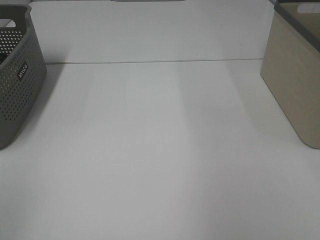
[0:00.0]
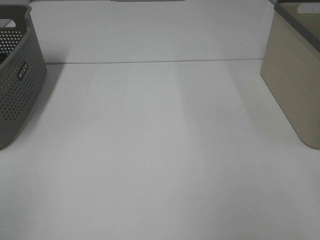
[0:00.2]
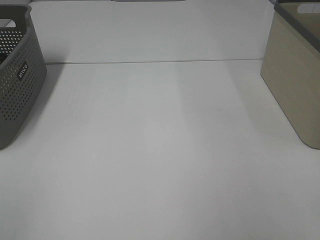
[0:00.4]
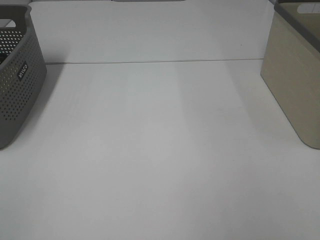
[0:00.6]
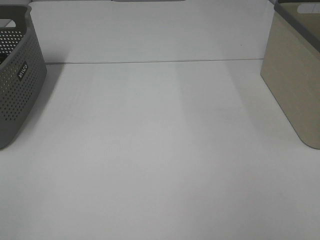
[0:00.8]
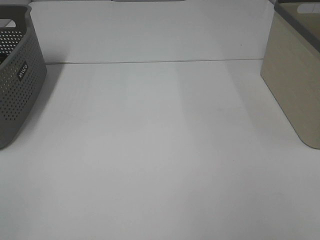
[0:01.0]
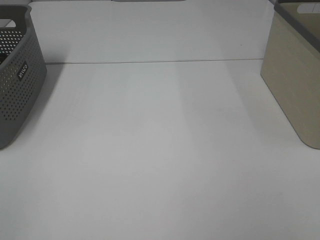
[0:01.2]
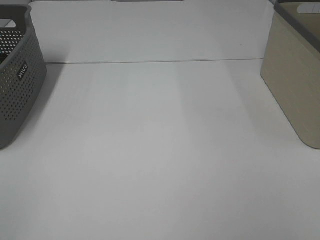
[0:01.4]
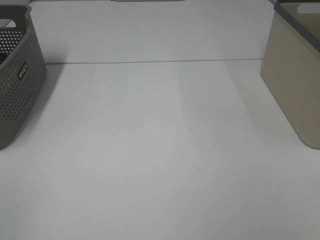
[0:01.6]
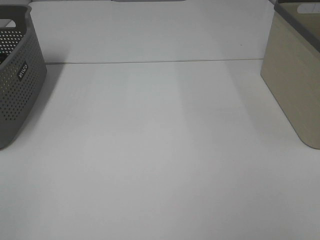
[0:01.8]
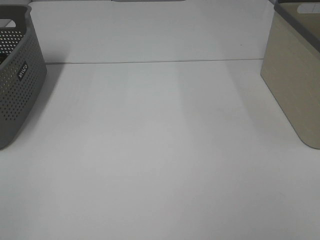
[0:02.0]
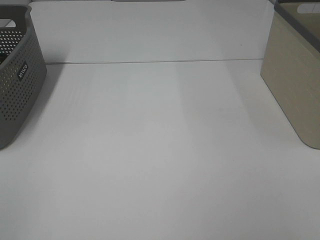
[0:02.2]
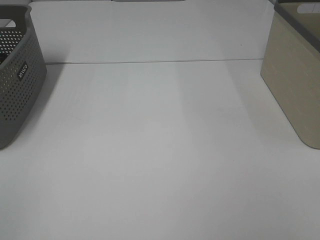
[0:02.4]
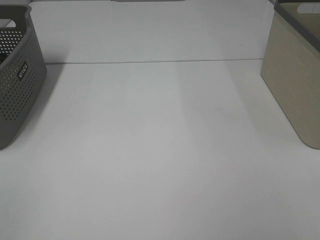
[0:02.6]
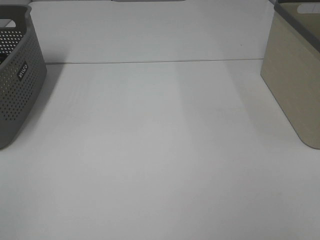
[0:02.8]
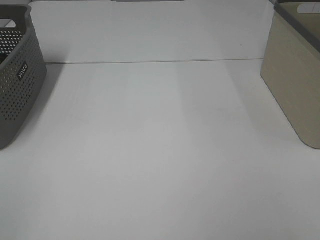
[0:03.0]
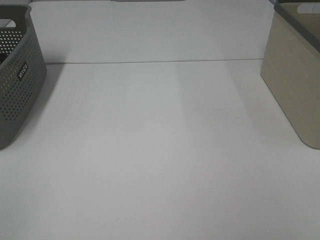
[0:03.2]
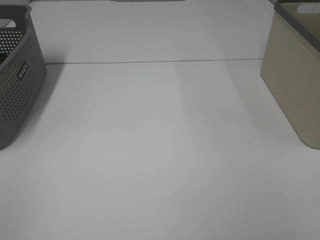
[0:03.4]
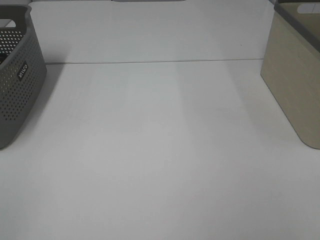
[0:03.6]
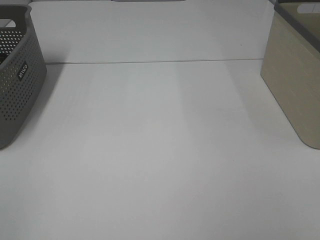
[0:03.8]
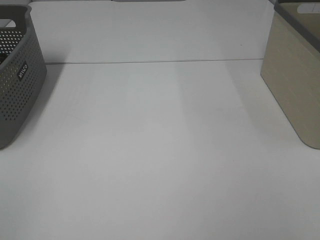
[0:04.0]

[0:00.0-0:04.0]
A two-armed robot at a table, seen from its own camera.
0:01.4 to 0:04.0: Both grippers stay about where they are.

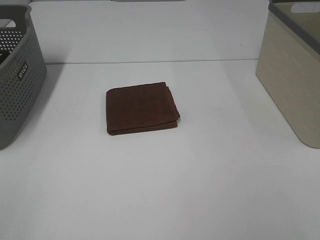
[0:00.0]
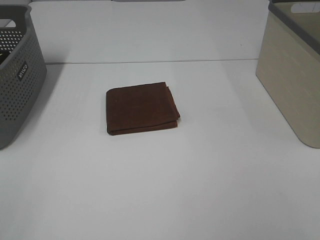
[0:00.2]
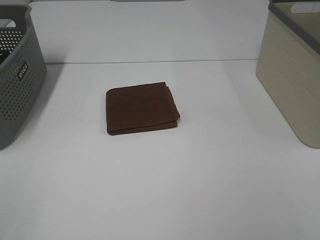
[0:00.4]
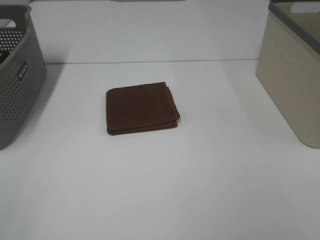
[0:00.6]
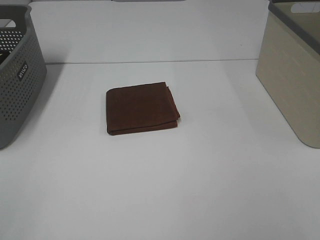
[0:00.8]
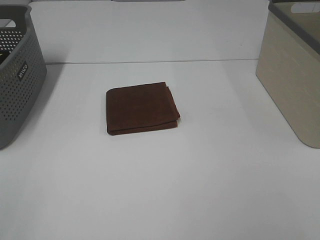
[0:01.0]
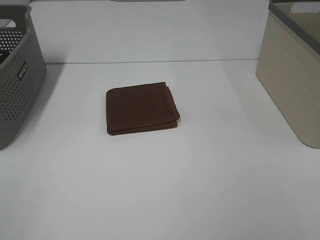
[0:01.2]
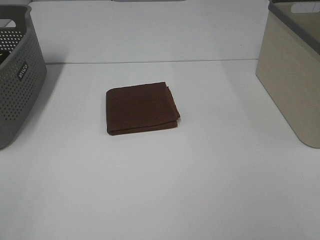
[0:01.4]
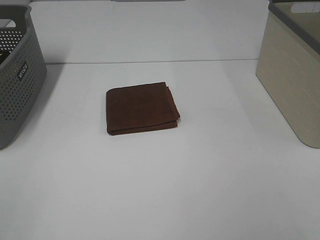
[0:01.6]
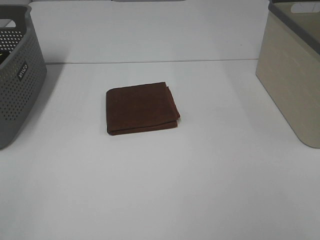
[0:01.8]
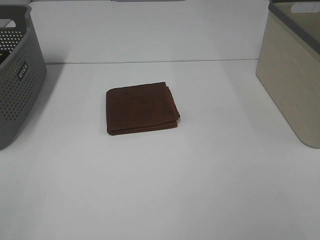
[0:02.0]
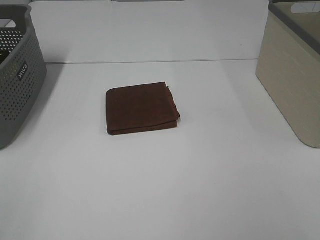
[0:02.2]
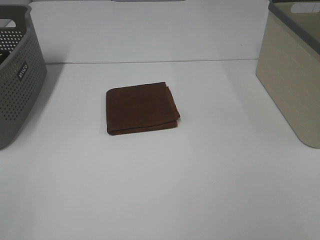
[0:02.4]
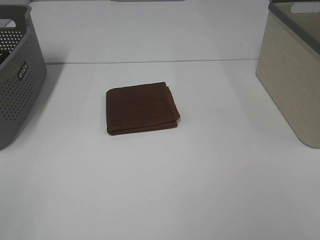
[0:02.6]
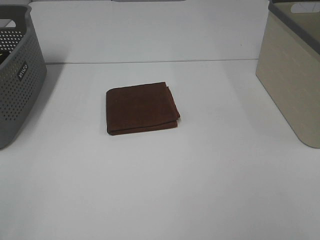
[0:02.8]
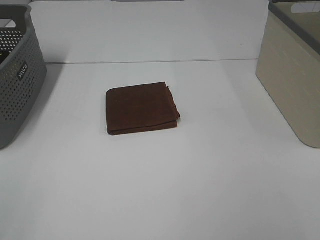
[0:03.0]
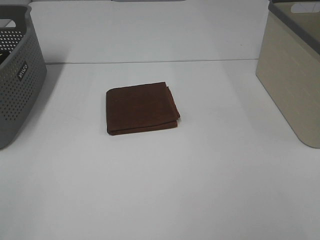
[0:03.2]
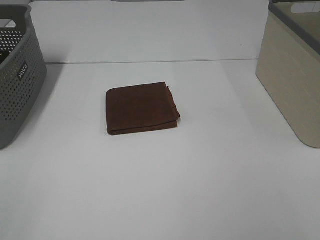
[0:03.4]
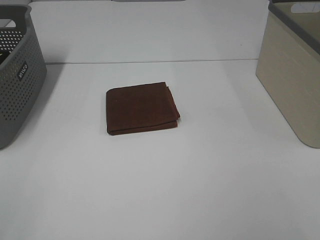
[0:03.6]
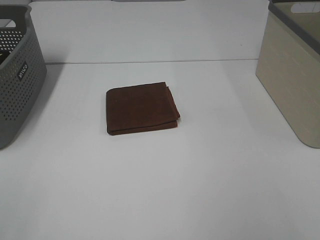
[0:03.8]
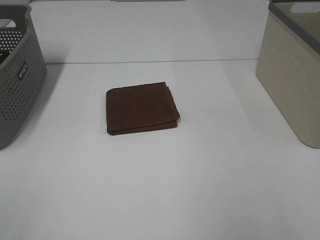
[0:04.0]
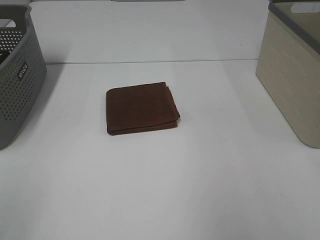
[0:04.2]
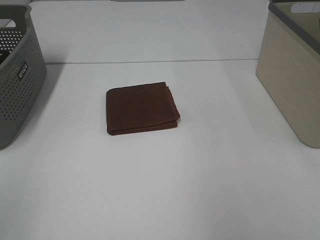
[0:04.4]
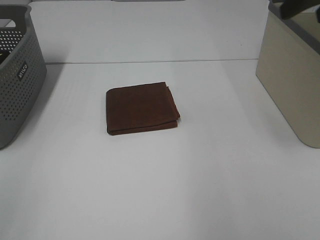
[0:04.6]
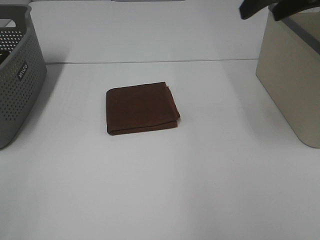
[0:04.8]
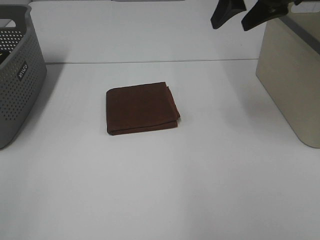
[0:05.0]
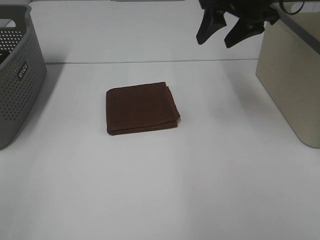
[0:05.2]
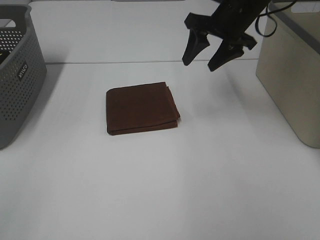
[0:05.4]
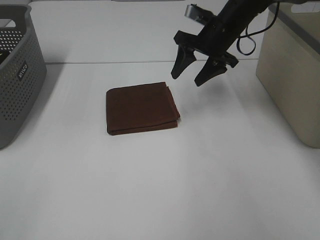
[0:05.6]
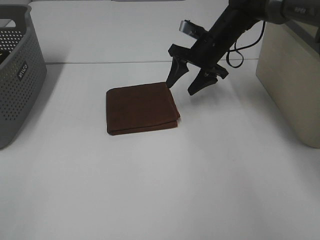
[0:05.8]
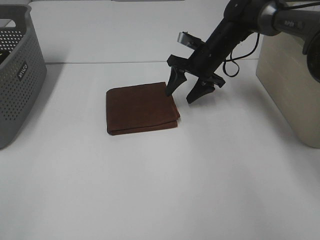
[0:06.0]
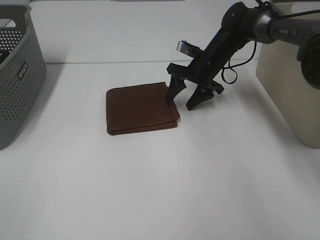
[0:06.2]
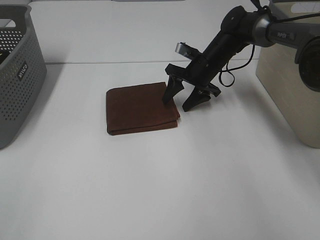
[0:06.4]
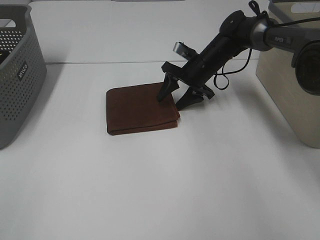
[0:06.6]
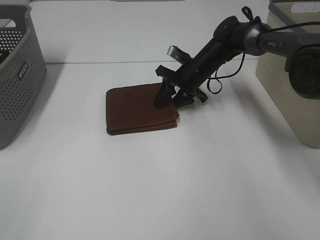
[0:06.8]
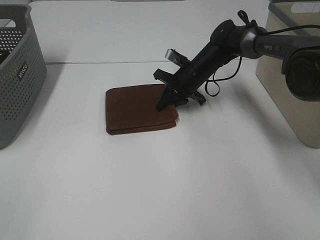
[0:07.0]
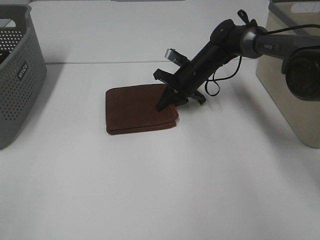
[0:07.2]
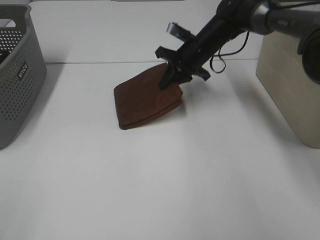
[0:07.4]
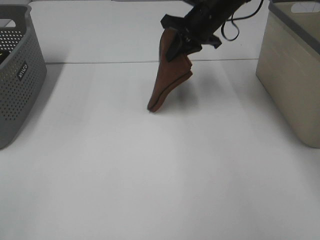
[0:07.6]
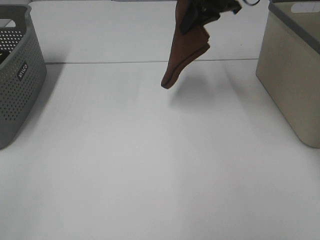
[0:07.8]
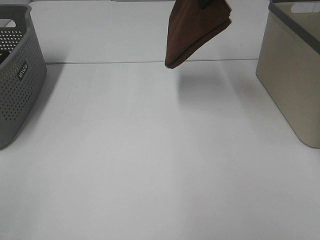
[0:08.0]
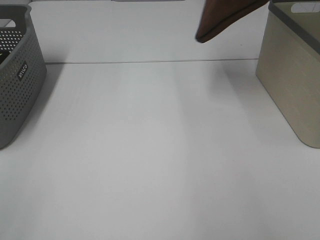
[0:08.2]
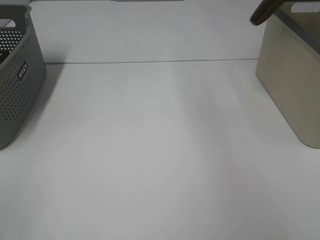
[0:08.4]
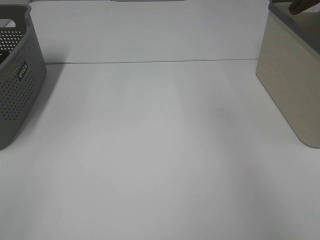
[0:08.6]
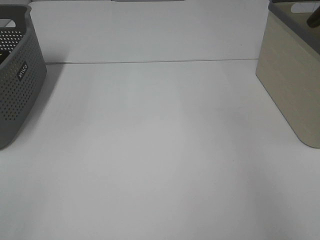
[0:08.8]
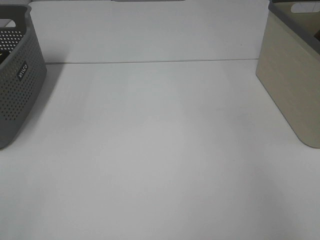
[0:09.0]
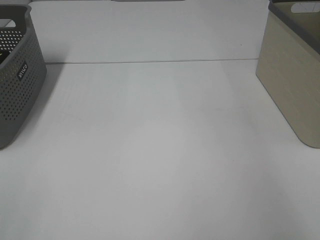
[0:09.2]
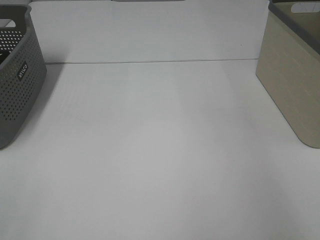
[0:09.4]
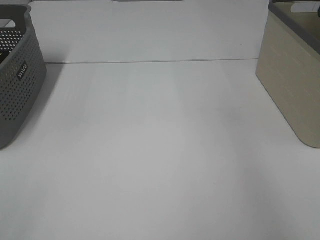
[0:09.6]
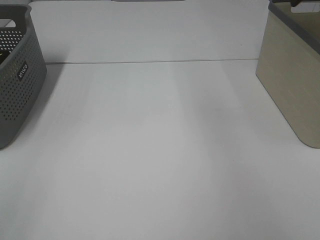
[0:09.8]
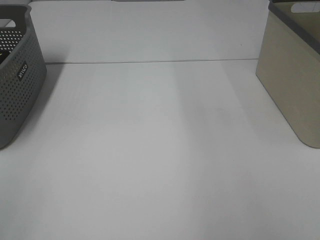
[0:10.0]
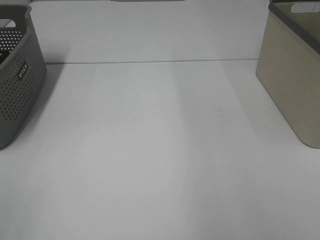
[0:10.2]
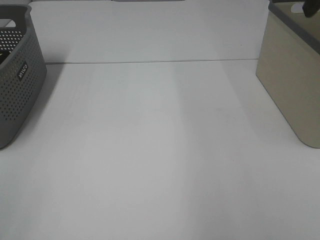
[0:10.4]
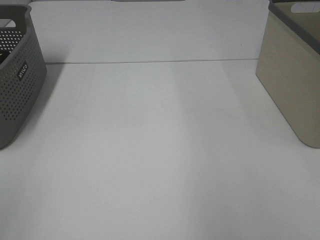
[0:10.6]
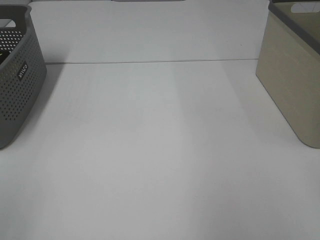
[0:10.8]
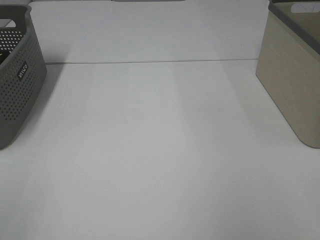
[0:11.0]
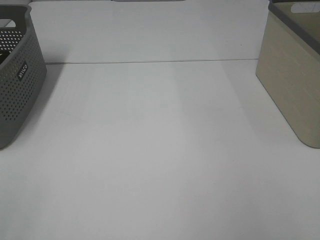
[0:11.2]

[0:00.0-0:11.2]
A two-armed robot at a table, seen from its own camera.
Step, 0:00.0 to 0:07.2: Right hand: grab the folded brown towel.
Step, 0:07.4 to 0:09.4: Right hand: place the brown towel in right basket.
0:00.0 to 0:03.2: Both grippers stay about where they are.
0:03.2 to 0:04.8: The right gripper shifts about 35 cm forward.
0:04.8 to 0:06.4: The right gripper shifts approximately 30 cm downward and forward.
0:06.4 to 0:08.0: The right gripper is displaced upward by some 25 cm, and closes its fingers.
0:08.0 to 0:09.6: The right gripper heads to the right, covering some 20 cm, and opens up.

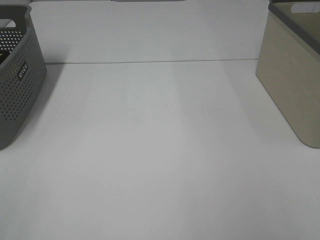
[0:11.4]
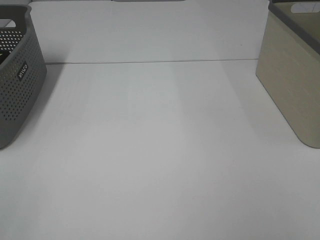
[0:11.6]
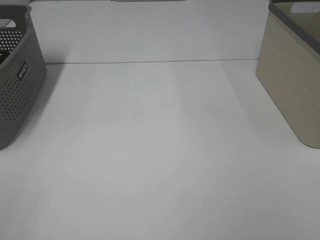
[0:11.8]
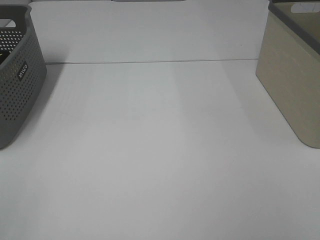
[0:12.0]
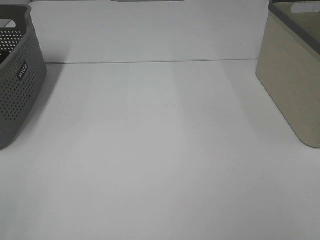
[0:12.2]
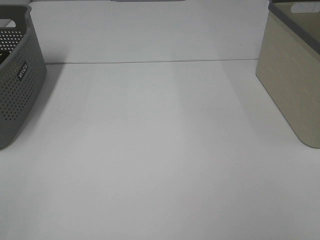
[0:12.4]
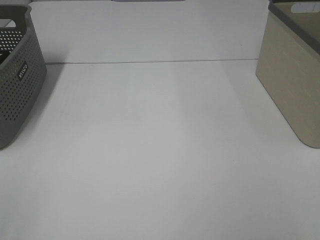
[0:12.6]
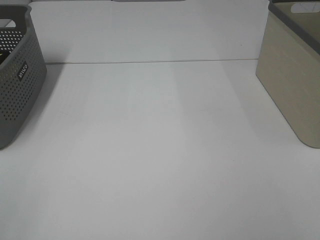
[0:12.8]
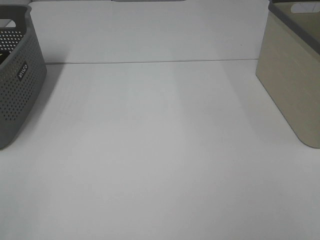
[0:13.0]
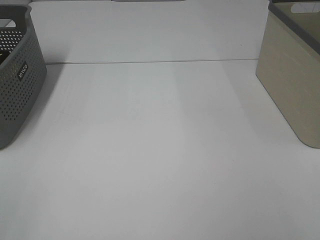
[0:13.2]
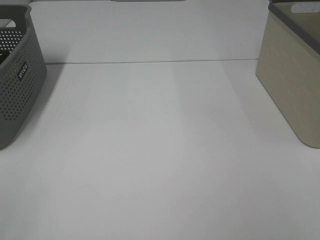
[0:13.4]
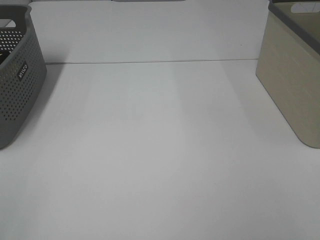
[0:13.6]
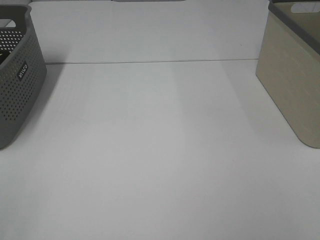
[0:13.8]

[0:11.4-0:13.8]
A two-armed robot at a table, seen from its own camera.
0:12.6 to 0:13.8: Neither gripper changes place.
